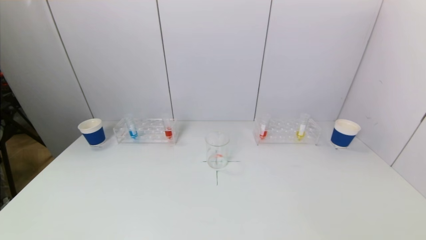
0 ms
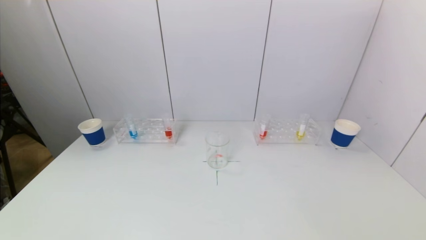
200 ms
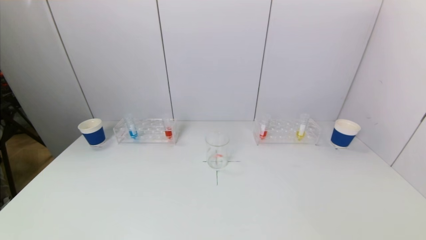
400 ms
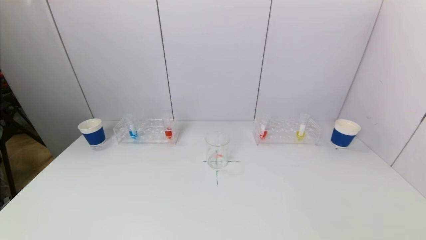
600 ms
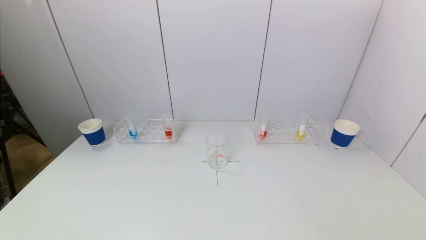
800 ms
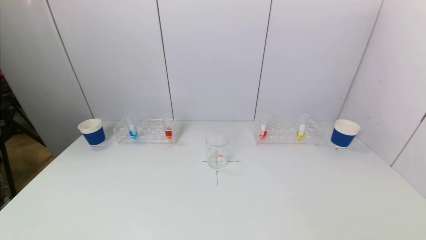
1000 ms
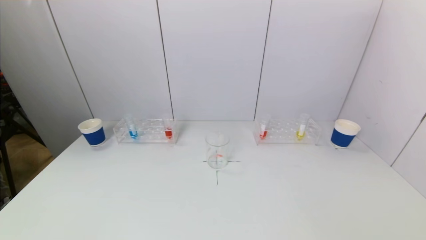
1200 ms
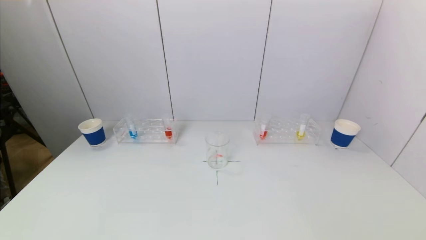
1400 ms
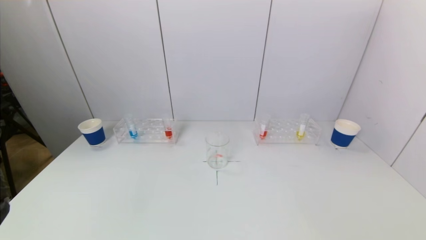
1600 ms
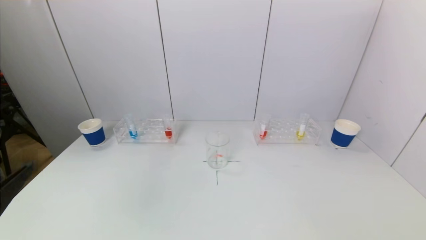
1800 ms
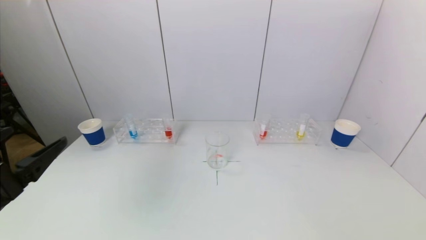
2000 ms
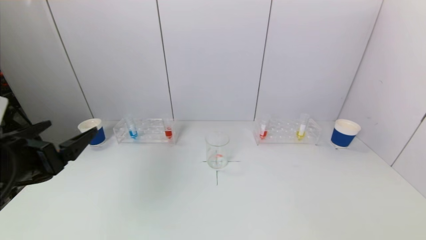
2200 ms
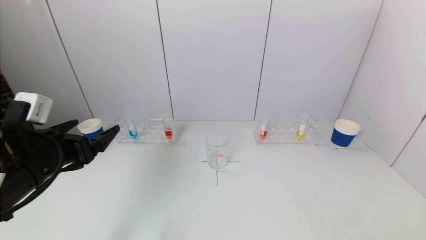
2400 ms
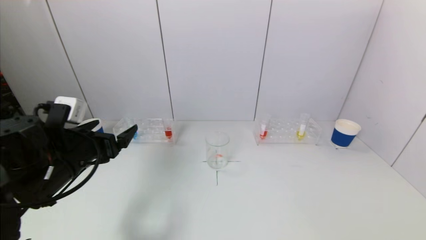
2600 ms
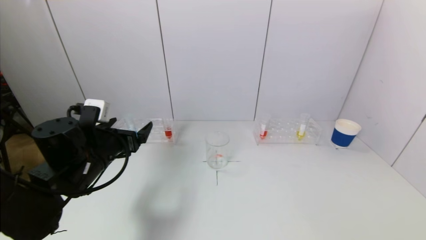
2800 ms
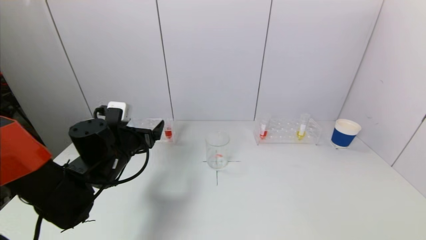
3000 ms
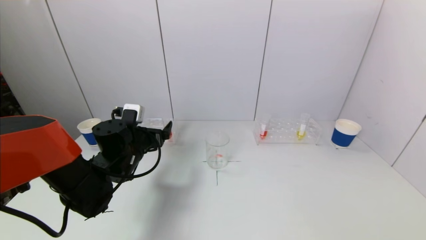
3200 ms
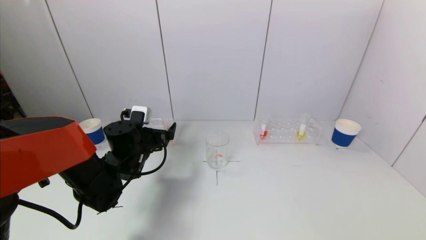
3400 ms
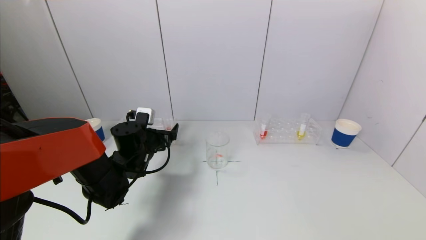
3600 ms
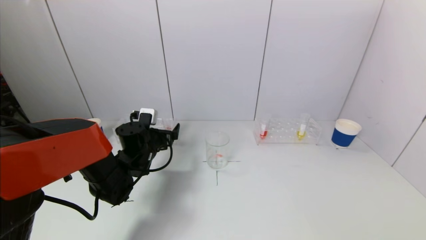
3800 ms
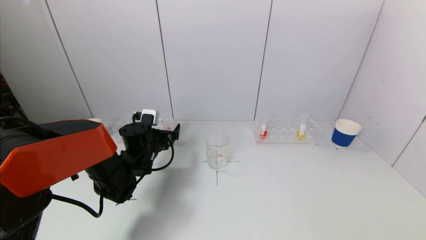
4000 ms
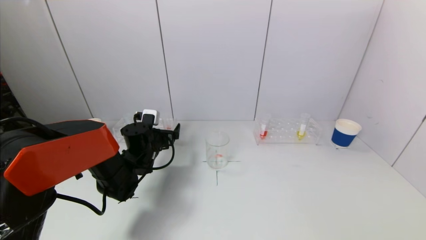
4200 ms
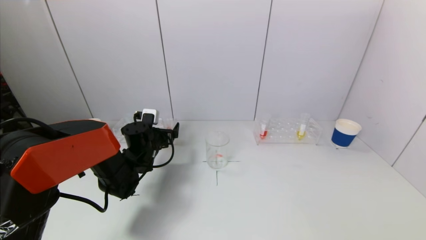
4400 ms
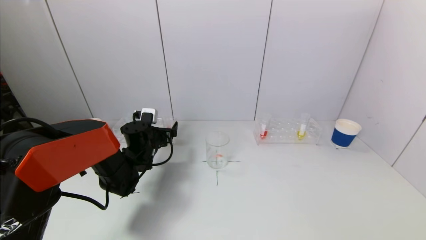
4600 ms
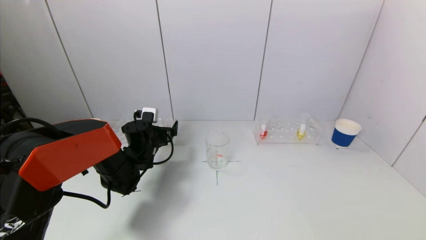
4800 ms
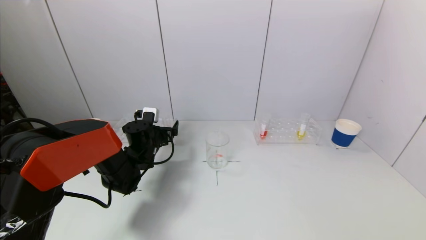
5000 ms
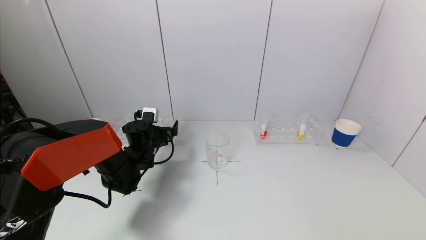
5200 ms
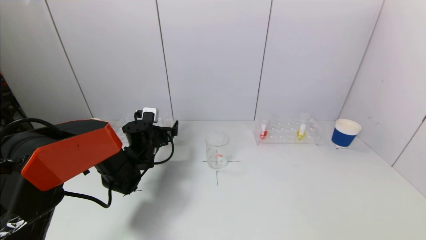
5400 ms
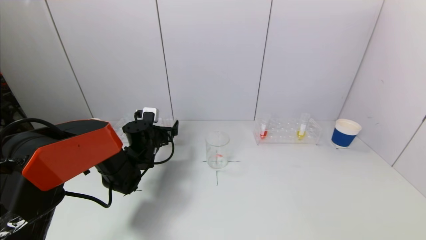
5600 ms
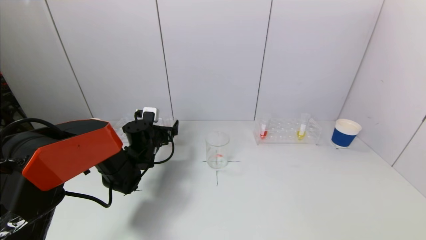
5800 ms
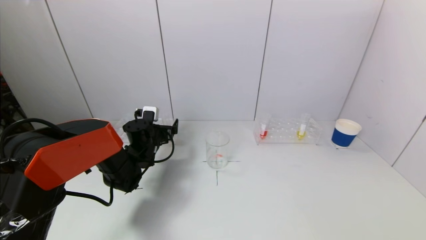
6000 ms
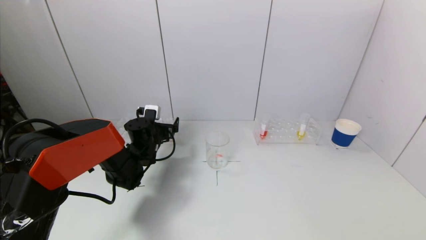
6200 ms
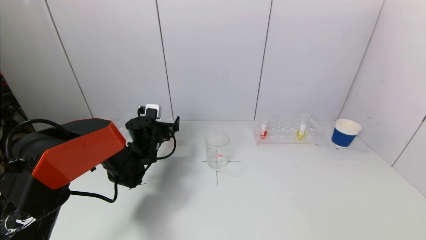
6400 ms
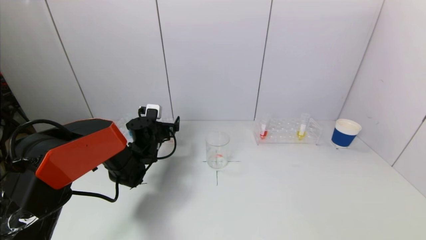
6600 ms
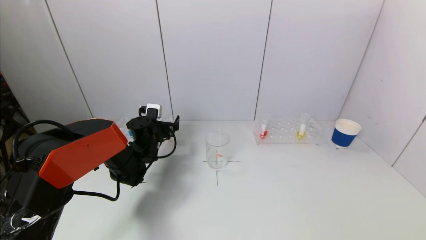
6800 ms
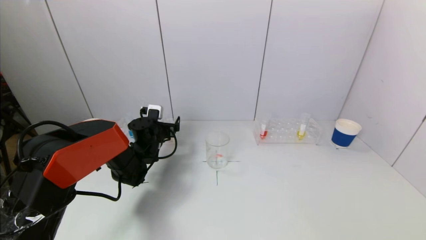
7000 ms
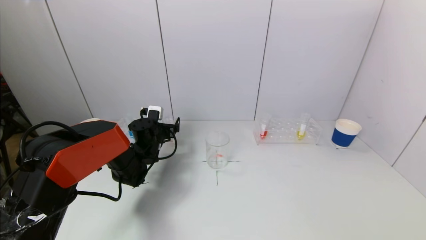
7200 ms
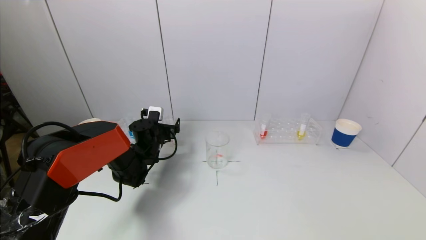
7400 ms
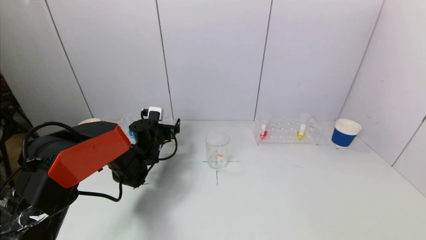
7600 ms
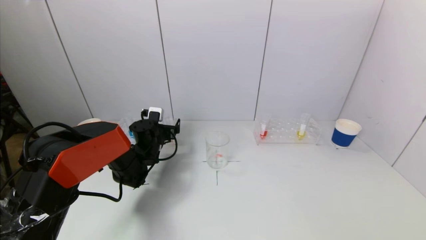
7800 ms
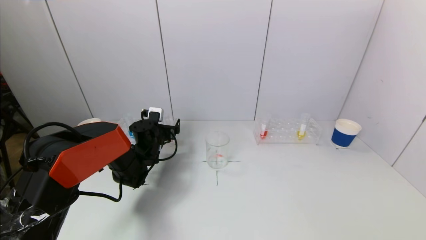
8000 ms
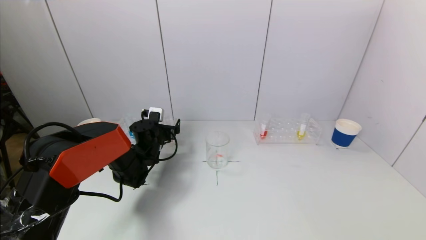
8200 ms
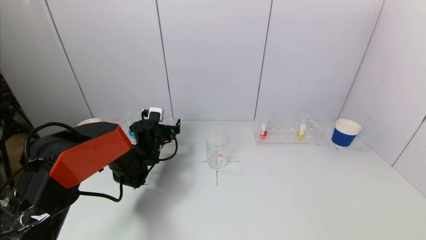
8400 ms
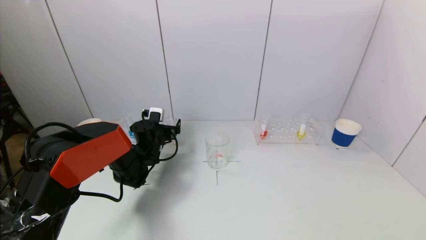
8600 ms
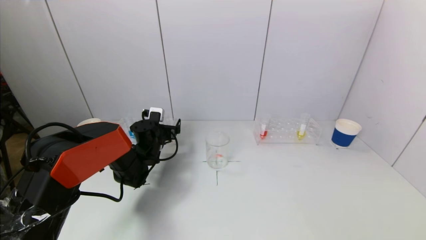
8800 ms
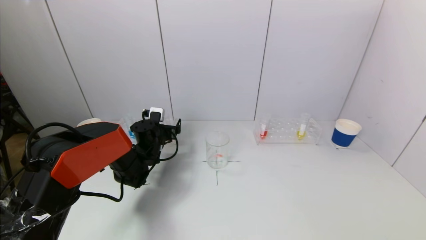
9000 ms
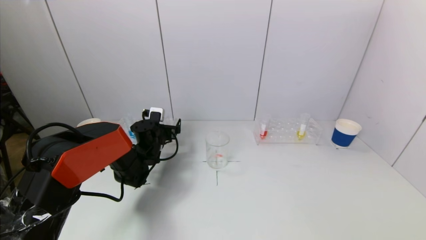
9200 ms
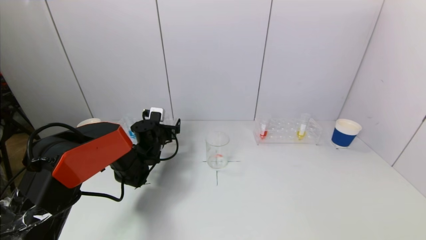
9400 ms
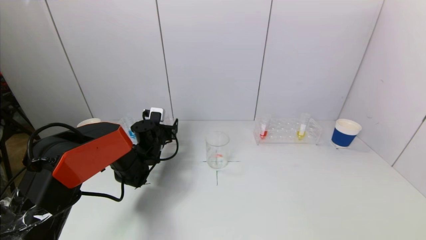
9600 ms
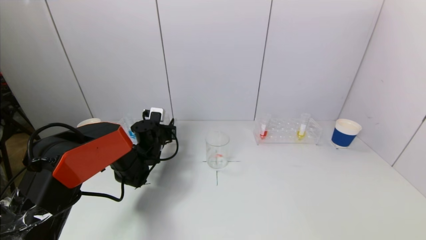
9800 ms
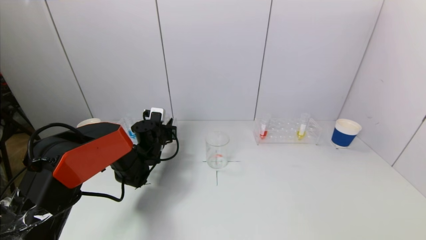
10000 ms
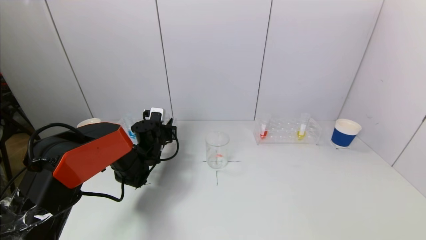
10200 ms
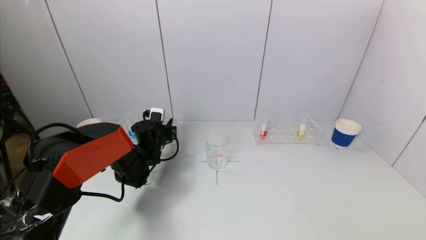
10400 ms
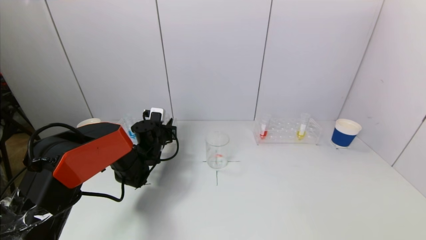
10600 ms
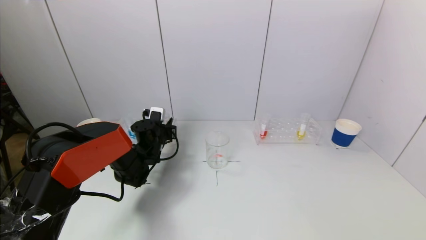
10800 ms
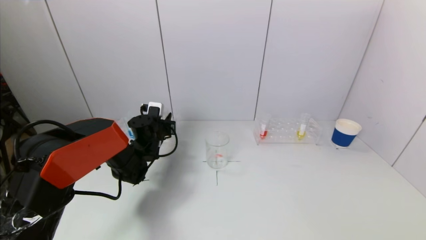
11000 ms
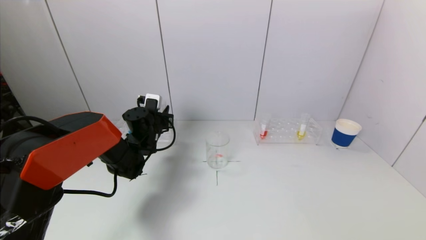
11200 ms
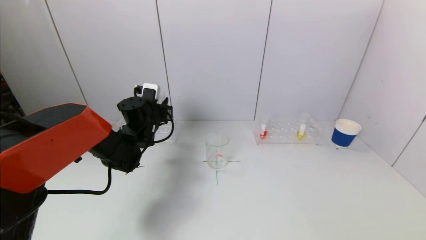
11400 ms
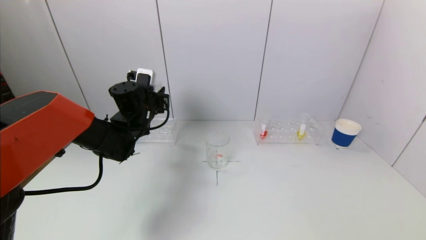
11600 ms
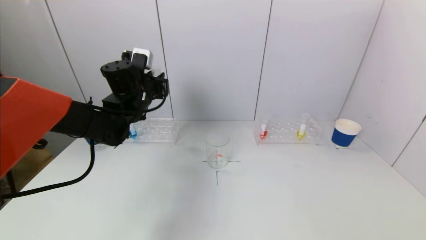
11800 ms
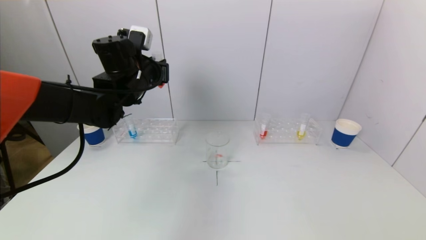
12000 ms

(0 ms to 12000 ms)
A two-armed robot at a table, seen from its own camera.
Task of the whole recording: pick up a test tube with pigment on left test tube rack and a test tube with pigment on right test tube rack by grippers and pour them into the beaker.
Step, 0 ms - 10000 ms: Grasp the red reagent with the left gripper.
1600 ms - 3000 ms: The left gripper goes about 30 cm forward.
3000 ms - 4400 ms: The left gripper goes some 10 cm forward and downward.
4400 ms - 7600 ms: The grippers make only small movements.
7600 ms - 9000 ms: Both grippers stay about where they are.
9000 ms - 10400 ms: The left gripper closes.
10400 ms - 12000 ms: The left gripper moves upward, some 25 cm.

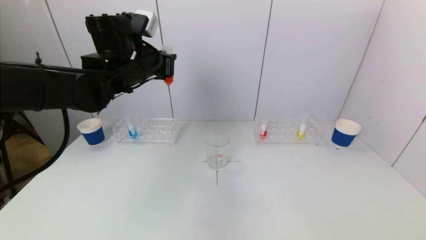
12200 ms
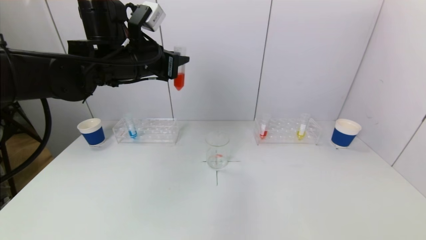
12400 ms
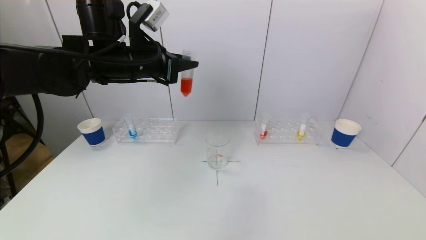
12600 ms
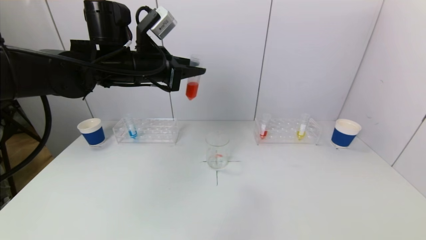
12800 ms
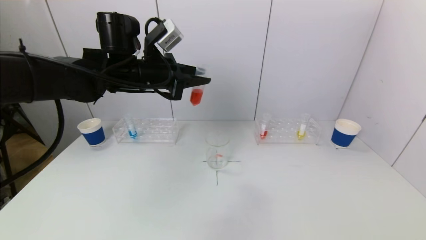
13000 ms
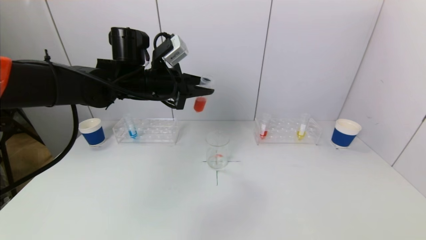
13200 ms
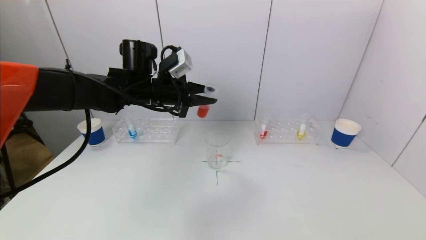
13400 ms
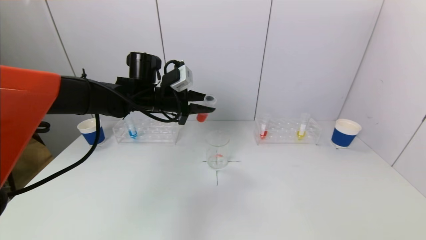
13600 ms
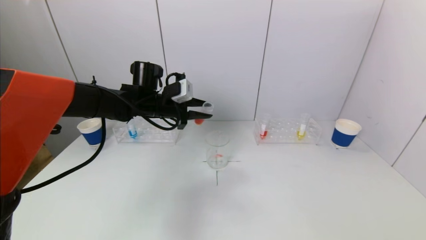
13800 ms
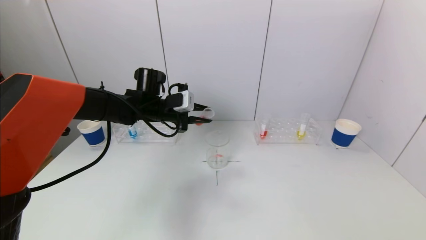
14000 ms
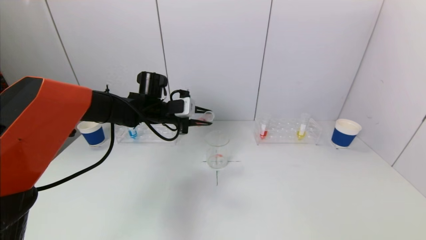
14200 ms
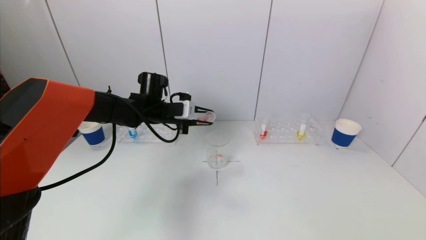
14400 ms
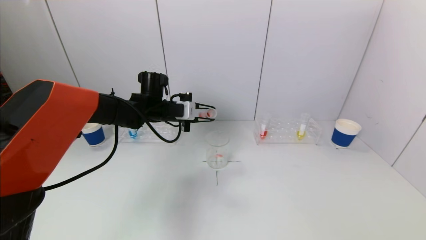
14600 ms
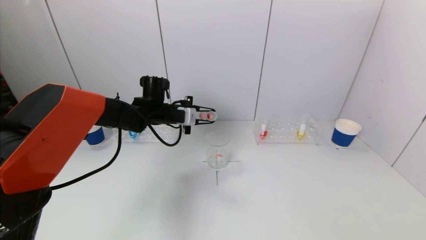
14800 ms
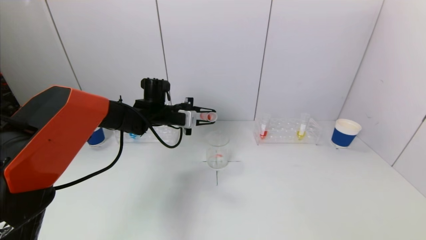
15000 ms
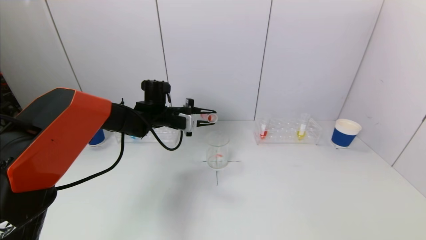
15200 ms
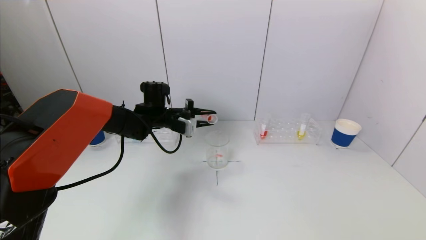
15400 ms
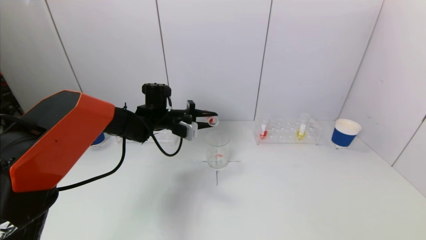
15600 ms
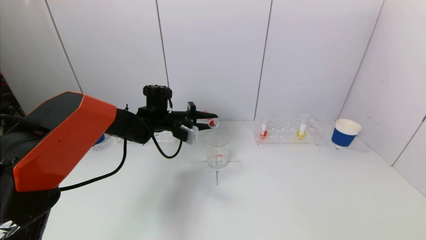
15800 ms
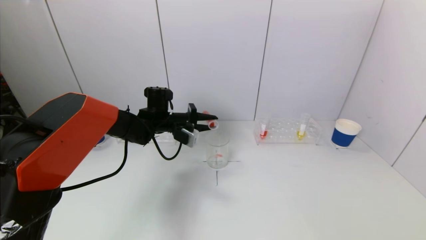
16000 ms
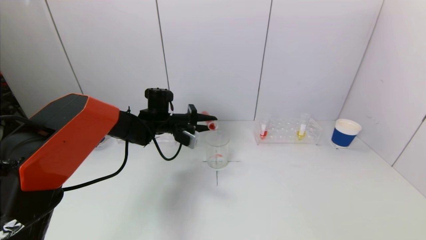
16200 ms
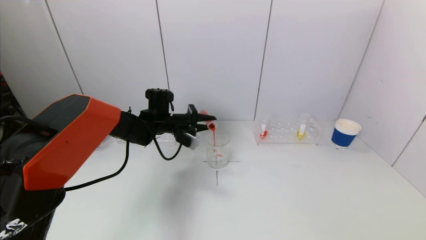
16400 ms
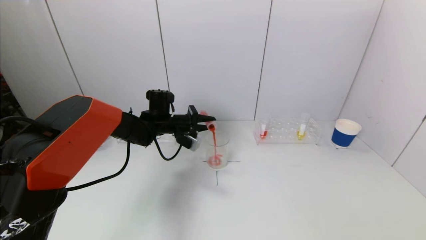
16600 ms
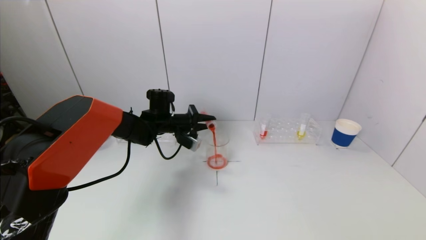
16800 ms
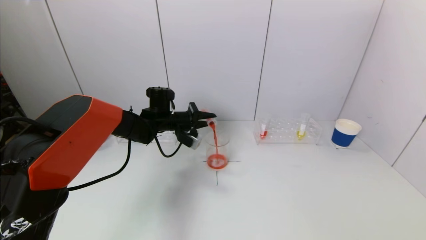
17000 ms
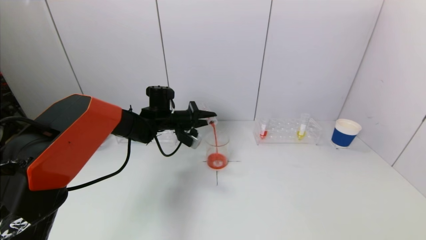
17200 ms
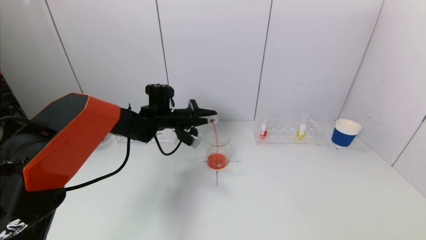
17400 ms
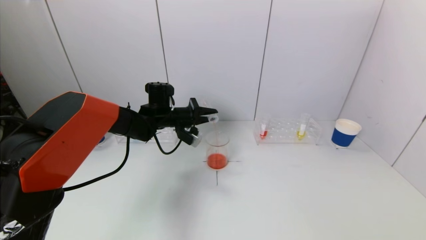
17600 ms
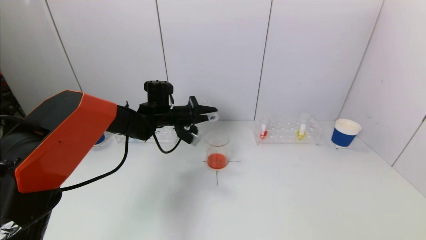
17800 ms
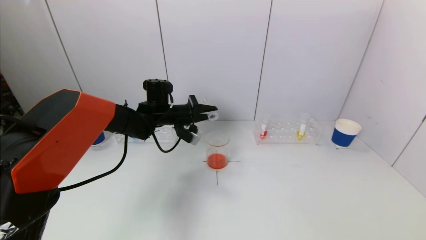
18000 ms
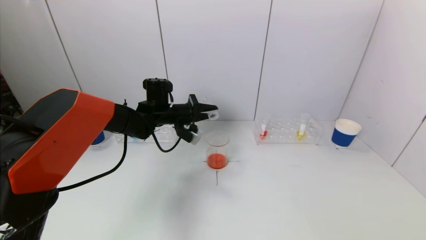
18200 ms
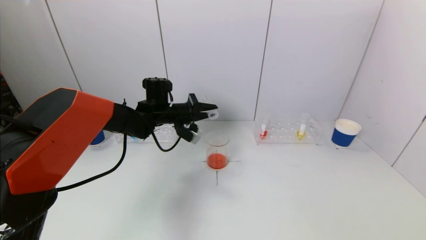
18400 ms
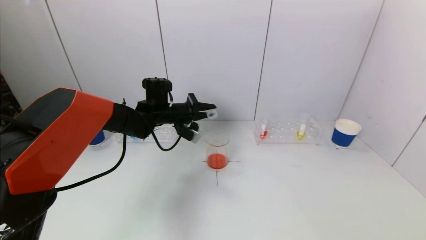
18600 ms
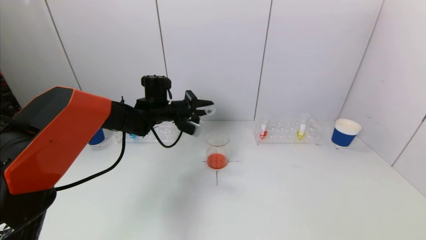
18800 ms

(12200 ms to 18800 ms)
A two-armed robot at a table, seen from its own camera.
Task of the whole recording: pick up a test tube with pigment on left test tube rack and a test tube with pigment on right test tube rack by grippers and pour them into the beaker.
Step, 12200 ms - 17600 ms: Pour the red reagent into the graduated cylinder with the left gripper.
12200 ms - 13800 ms: The left gripper is displaced downward by approximately 10 cm.
13800 ms - 15400 ms: The left gripper is displaced downward by roughly 5 cm.
17200 ms - 18800 ms: The grippers stay close to where they were, moving slightly.
